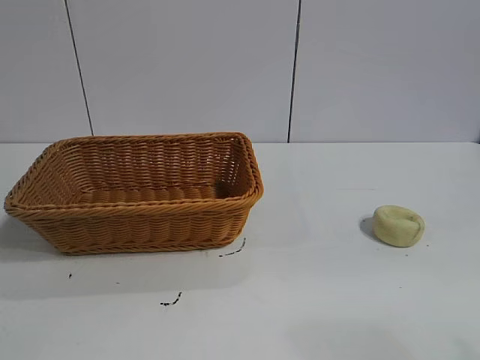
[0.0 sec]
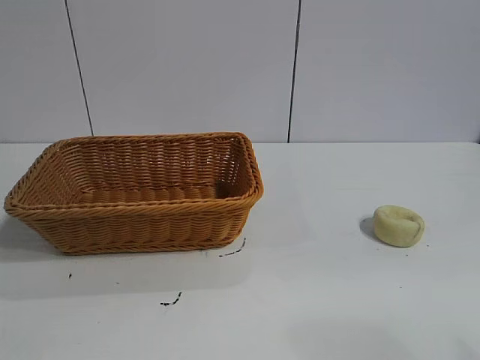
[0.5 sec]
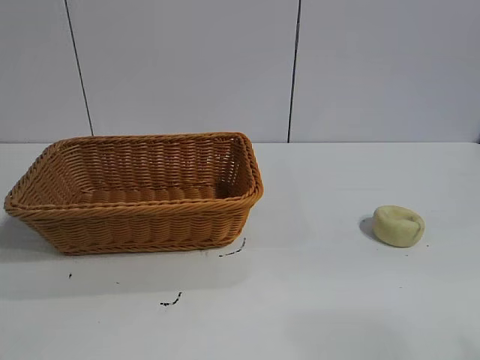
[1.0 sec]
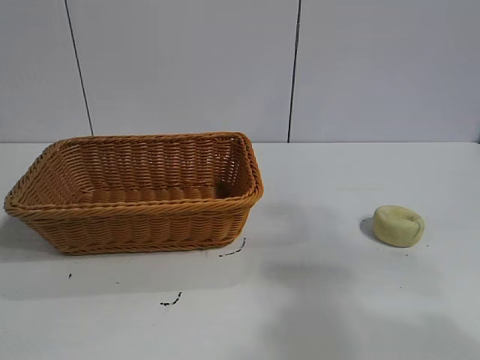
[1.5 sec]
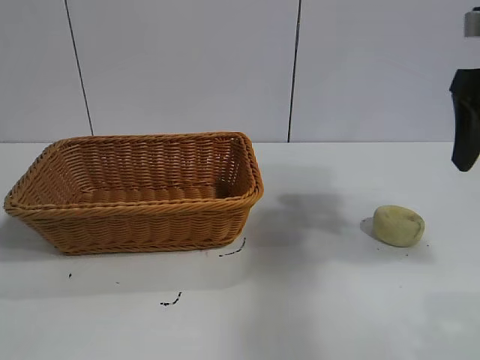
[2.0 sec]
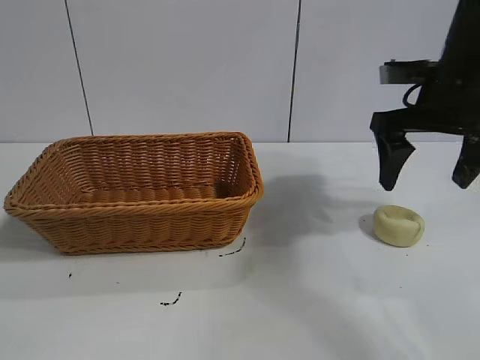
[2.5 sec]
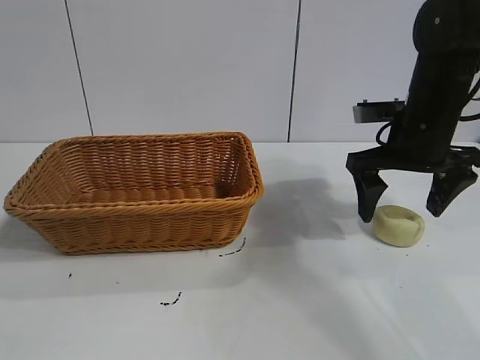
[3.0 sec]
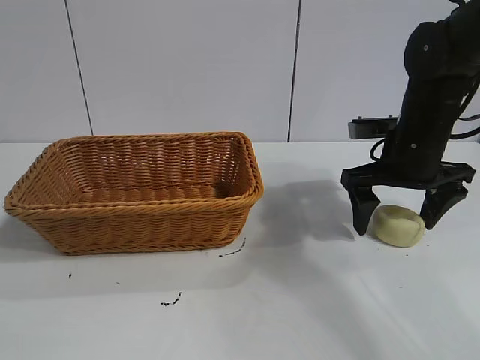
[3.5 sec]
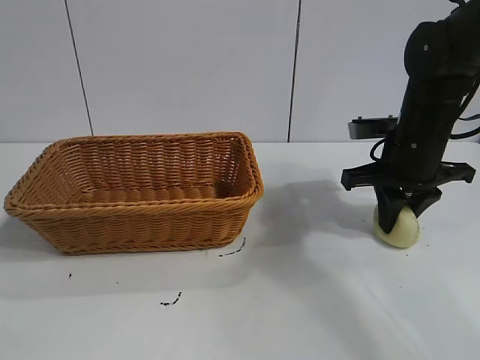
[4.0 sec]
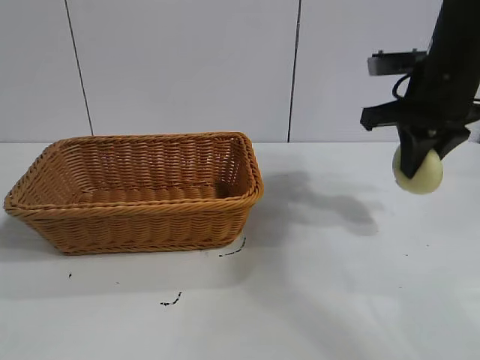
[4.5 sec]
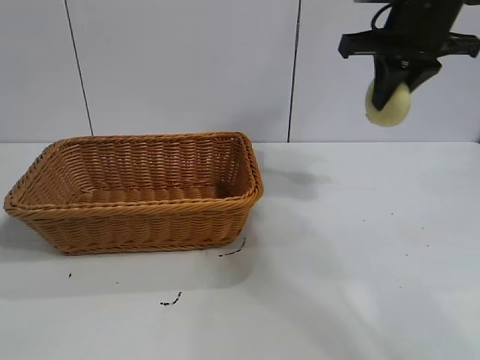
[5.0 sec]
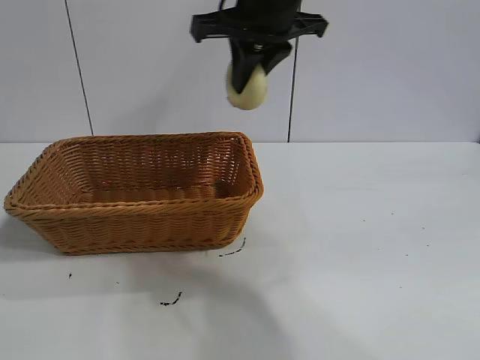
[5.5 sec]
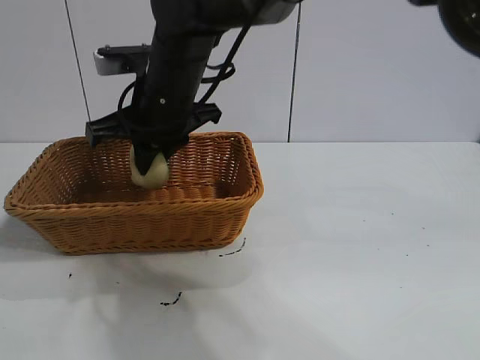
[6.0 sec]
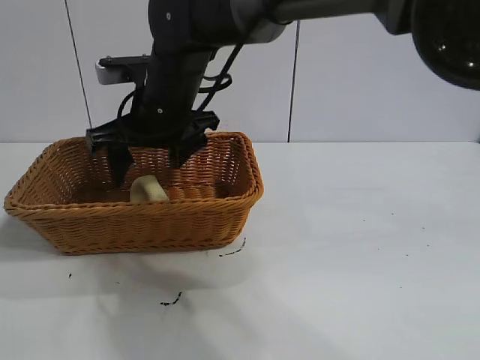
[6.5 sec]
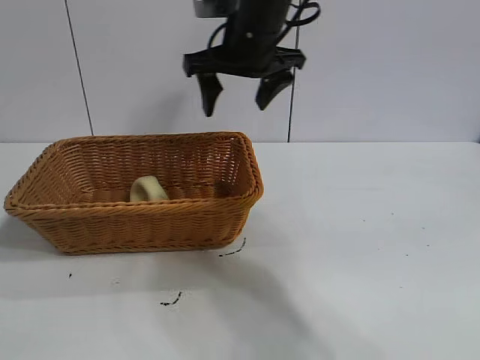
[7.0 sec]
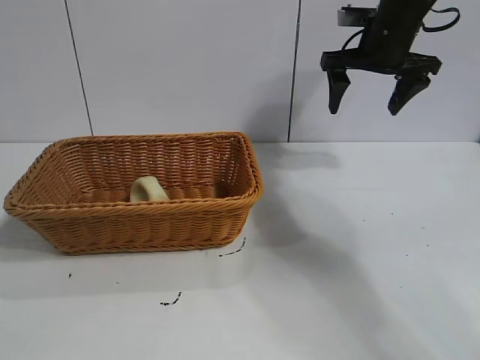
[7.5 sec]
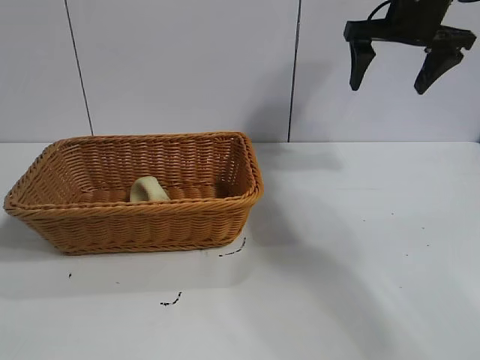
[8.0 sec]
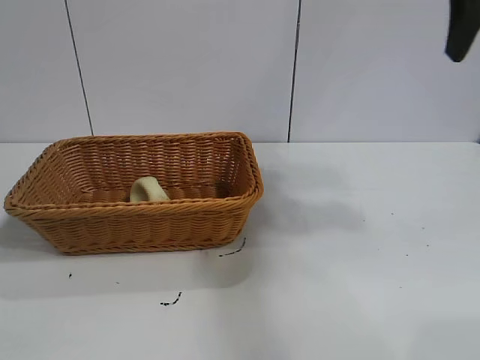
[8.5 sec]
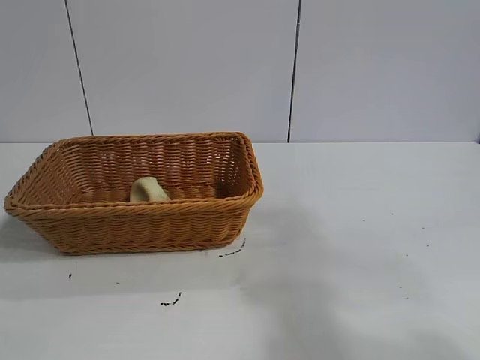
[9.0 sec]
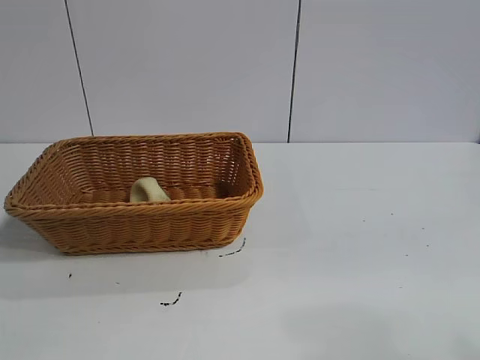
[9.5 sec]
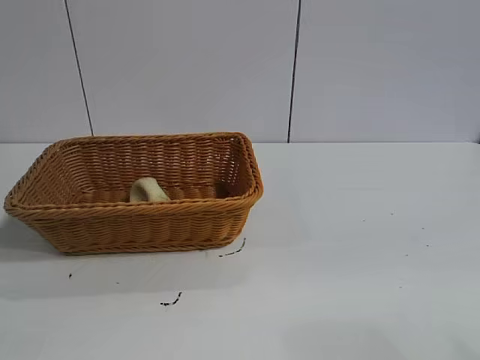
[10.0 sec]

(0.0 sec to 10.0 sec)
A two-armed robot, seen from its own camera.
Task of the whole recording: pick up the egg yolk pastry and put it into the basket.
Step, 1.0 sec - 4.0 sec: Grasp egg yolk pastry with right gripper.
Step, 4.5 sec - 6.0 sec: Place the egg yolk pastry in the basket with right gripper.
